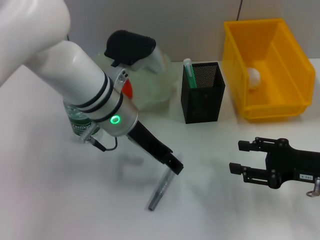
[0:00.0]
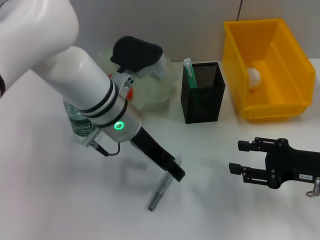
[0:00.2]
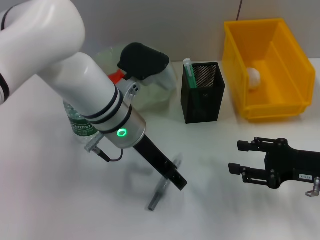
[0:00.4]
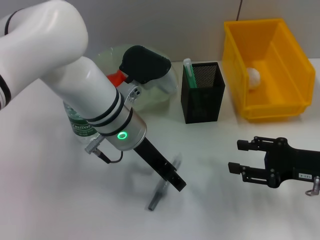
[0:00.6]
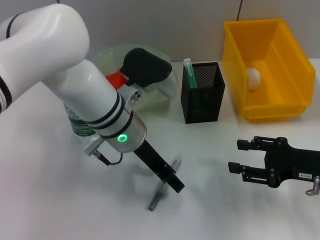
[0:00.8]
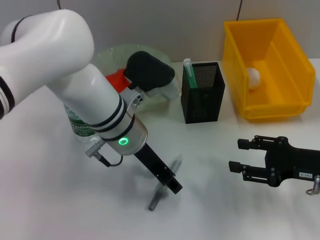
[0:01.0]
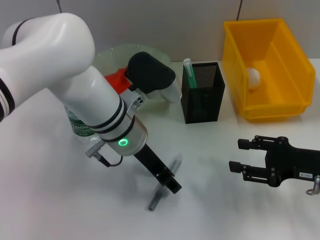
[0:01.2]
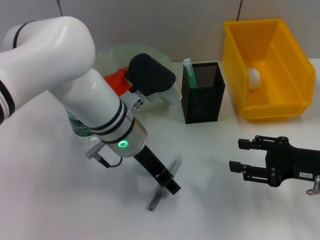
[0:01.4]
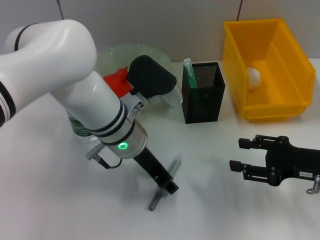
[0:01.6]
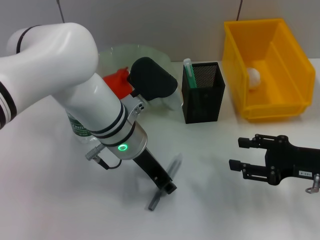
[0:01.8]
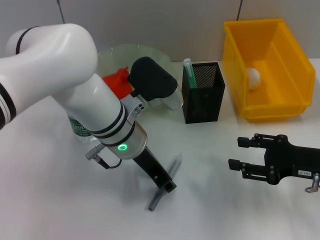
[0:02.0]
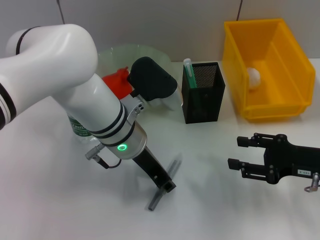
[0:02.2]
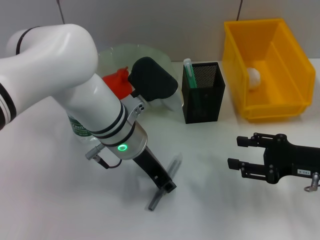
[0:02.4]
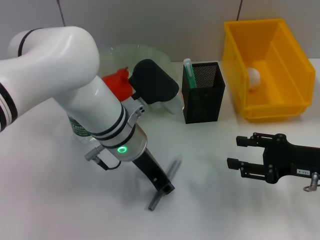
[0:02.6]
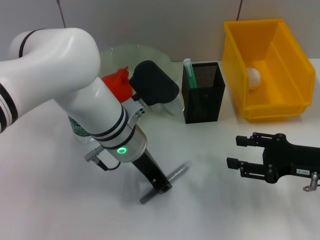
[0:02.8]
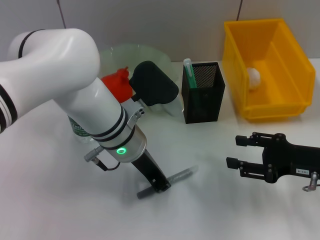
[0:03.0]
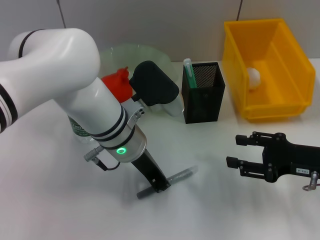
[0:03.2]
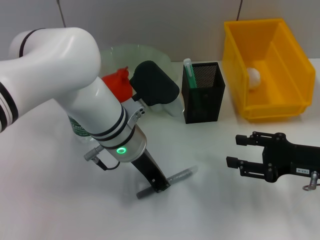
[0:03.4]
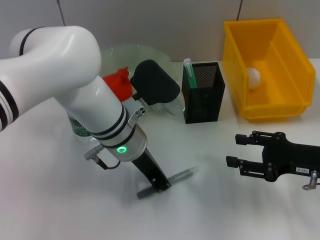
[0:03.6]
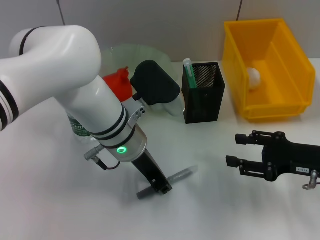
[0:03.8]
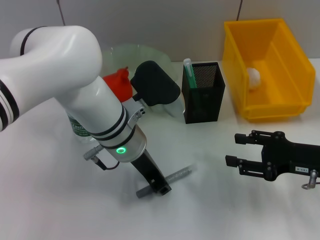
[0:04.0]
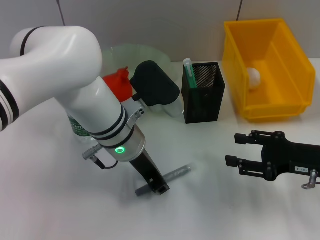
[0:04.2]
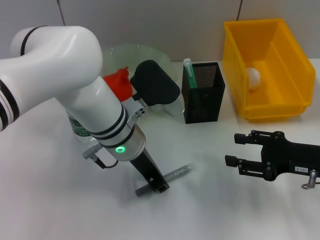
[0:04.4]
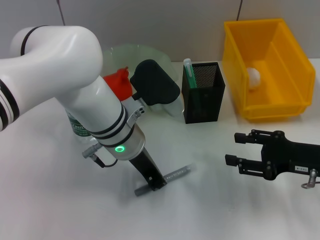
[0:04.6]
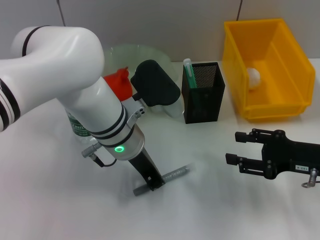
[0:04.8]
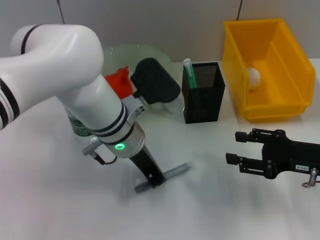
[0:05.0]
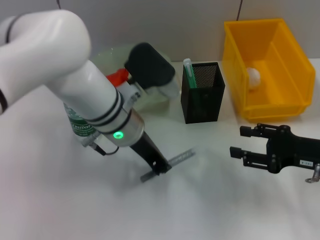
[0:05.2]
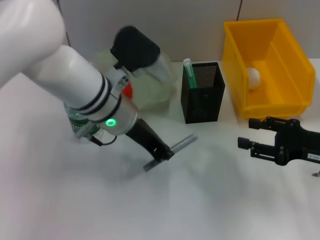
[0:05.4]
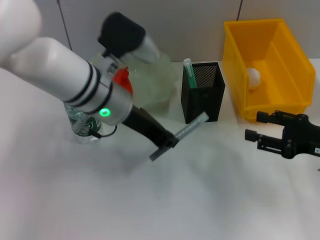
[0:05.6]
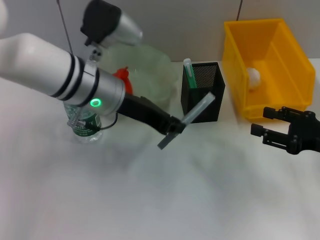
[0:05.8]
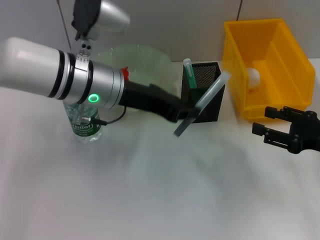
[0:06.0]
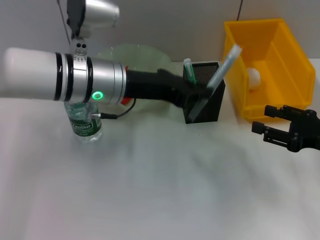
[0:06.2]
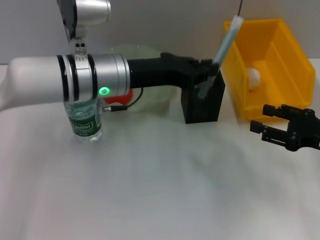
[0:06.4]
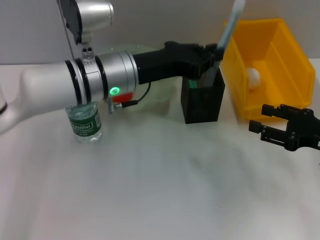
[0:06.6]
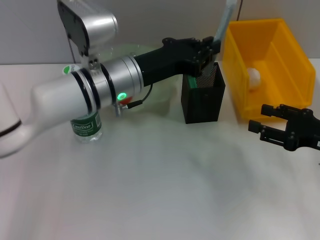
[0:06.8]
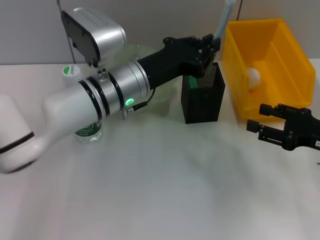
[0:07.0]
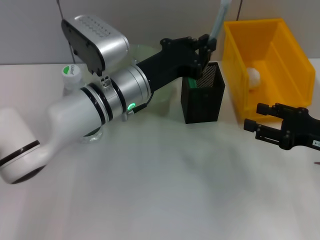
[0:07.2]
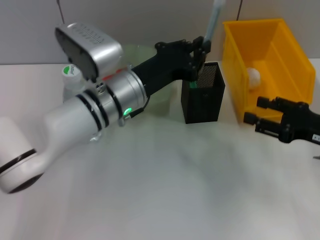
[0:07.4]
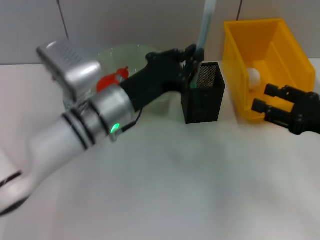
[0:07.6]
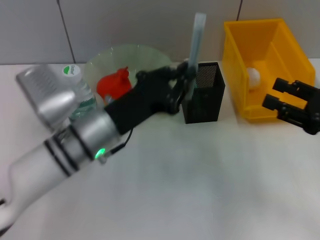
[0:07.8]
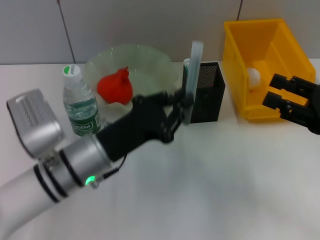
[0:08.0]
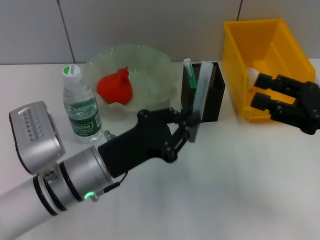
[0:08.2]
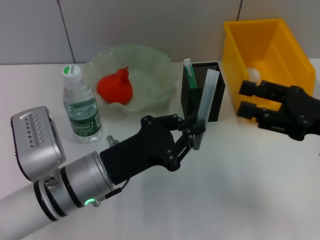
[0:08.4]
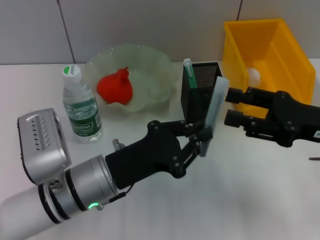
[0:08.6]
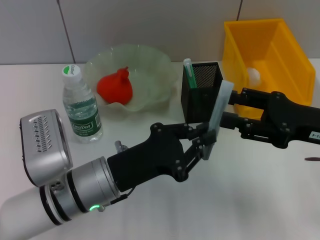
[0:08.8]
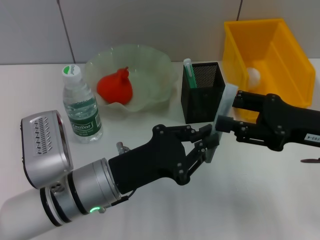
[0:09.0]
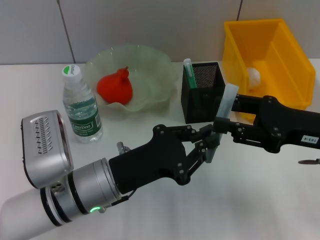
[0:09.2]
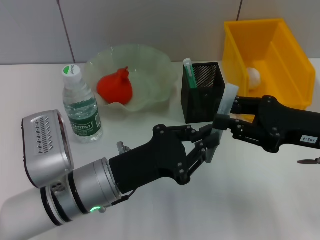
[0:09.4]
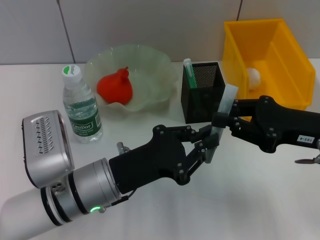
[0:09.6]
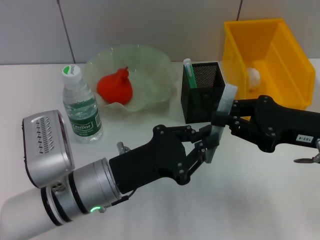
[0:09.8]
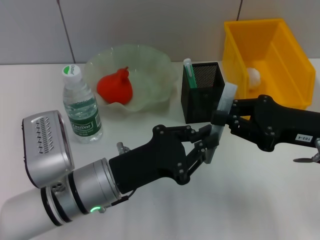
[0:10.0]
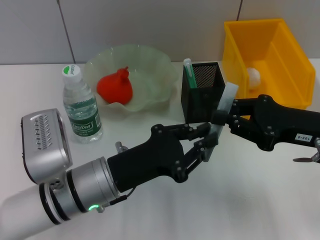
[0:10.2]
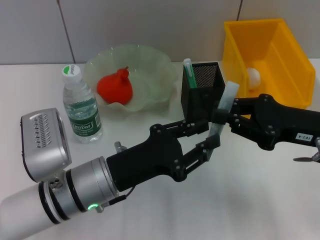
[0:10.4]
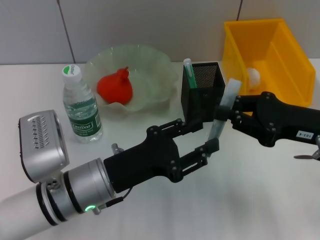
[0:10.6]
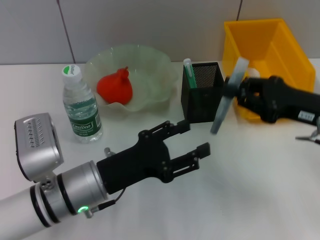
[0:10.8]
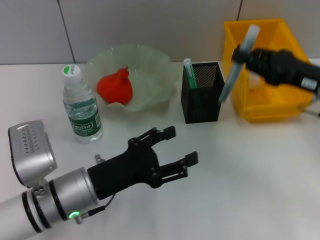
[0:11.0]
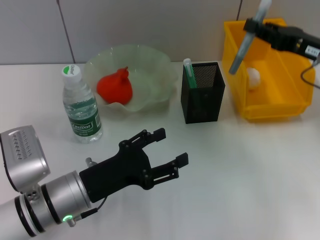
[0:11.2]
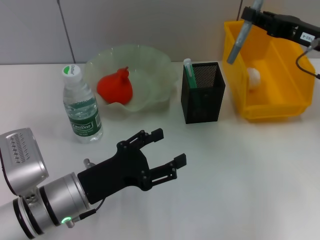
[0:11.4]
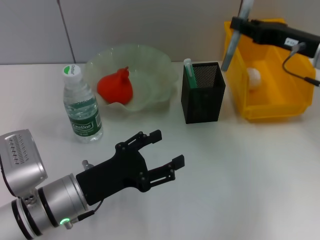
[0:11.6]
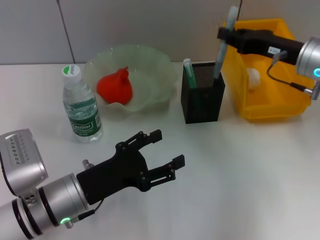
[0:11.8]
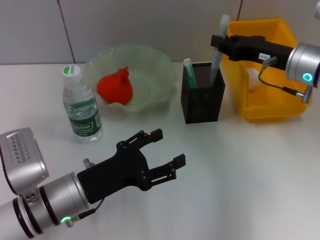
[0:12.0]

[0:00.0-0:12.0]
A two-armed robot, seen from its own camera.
Step, 0:00.0 to 0:04.6: Grab the gray glue with the left hand.
Step, 0:04.8 to 0:10.2: Pass the gray glue from the left hand to the right hand.
0:01.6 to 0:03.0: The left gripper closes its fingers.
0:03.0 to 0:04.4: The two grippers keep their place.
0:04.4 to 0:06.0: The left gripper shifts roughly 5 cm upward.
0:06.0 to 0:07.6: The left gripper shifts roughly 5 cm downward.
0:07.6 to 0:09.0: The right gripper moves to the left, approximately 5 cm. Meanwhile the left gripper heads backward, covering some 10 cm.
0:09.0 to 0:10.4: The right gripper closes.
0:10.4 to 0:12.0: The left gripper changes place by approximately 5 cm, and opens its fingers. The right gripper goes some 10 cm forward.

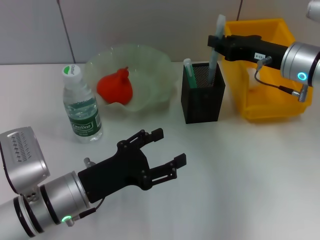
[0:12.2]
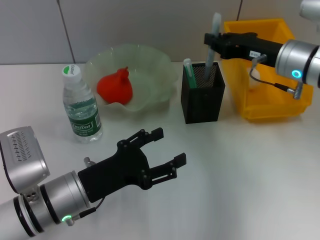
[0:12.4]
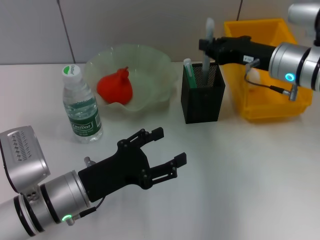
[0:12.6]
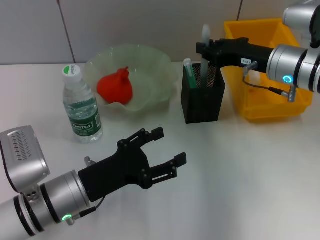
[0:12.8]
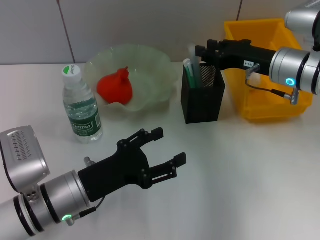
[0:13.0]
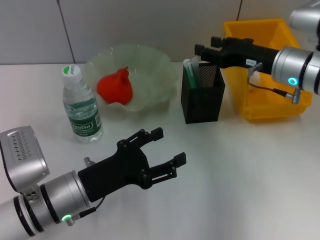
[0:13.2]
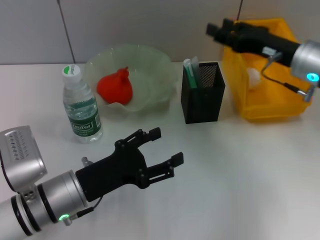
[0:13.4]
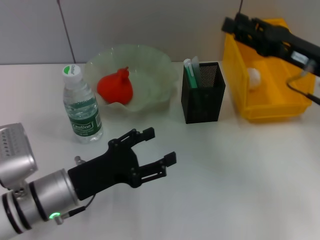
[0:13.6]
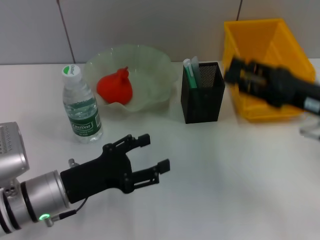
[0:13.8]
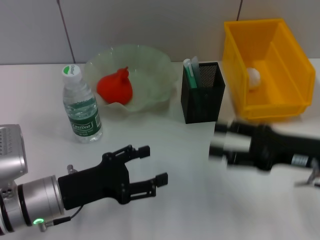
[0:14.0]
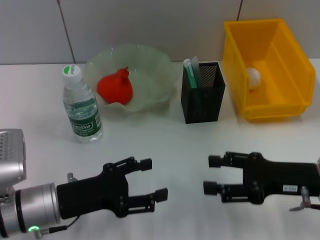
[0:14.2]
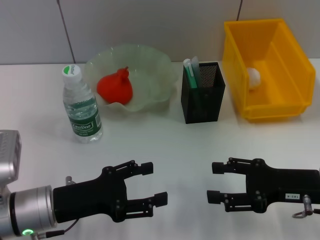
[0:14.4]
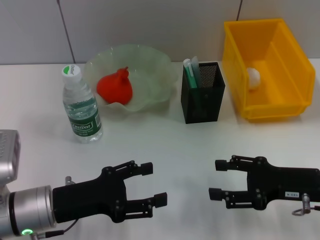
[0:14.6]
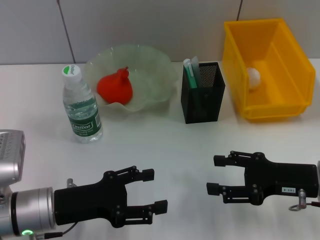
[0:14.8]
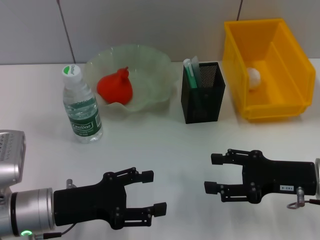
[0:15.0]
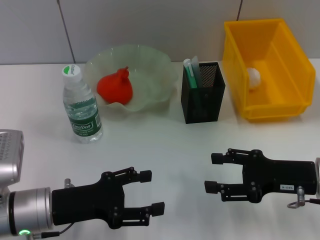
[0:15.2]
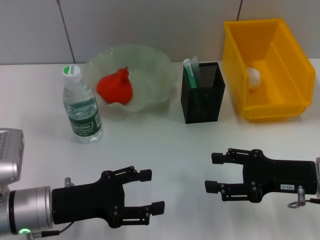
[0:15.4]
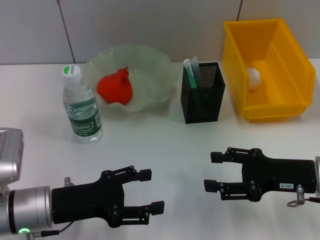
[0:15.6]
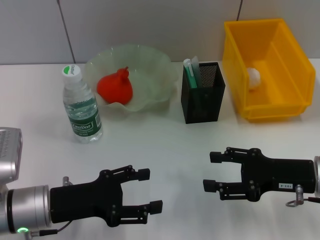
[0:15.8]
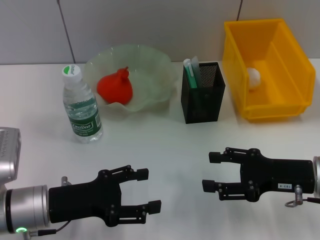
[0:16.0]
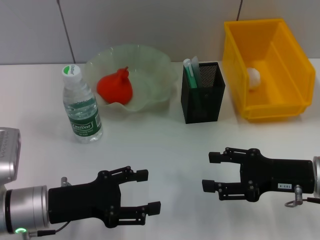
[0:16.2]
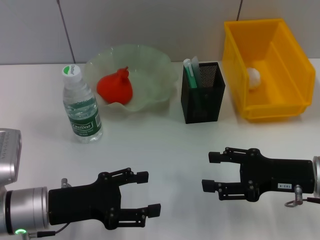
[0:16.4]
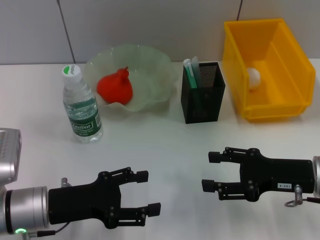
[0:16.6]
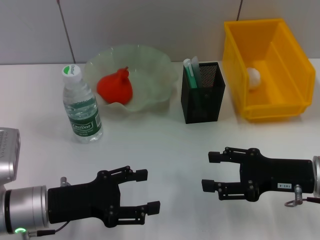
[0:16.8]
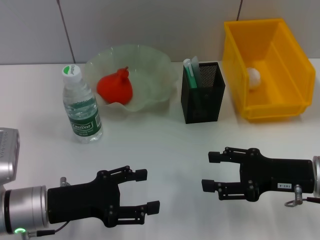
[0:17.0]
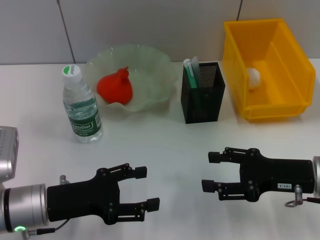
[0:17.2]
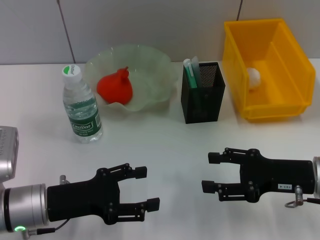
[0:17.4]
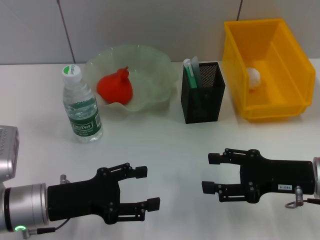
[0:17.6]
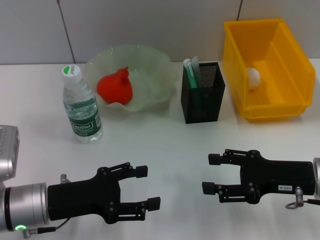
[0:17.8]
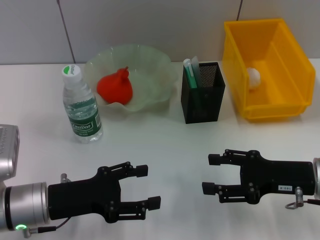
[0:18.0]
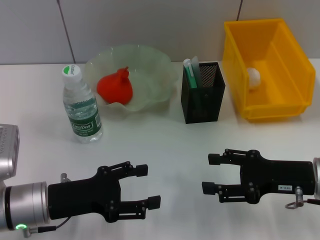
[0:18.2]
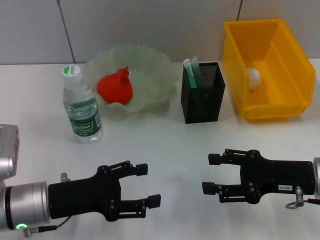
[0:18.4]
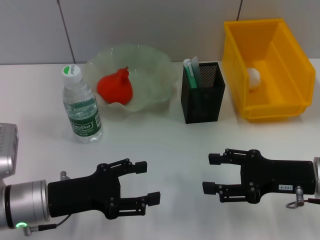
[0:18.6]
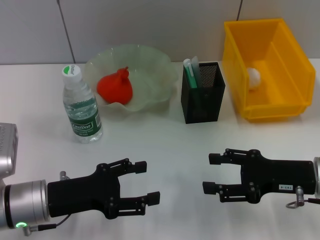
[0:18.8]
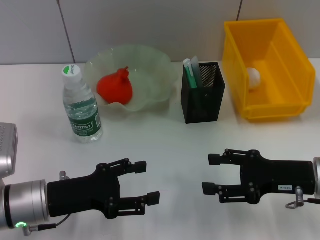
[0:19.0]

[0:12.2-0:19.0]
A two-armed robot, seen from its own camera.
0:12.2 to 0:13.6: The right gripper heads backward, covering some 5 cm, and opens its fingers.
0:13.6 to 0:15.0: The right gripper goes some 10 cm downward and backward.
0:15.0 to 0:19.0: The two grippers keep their place.

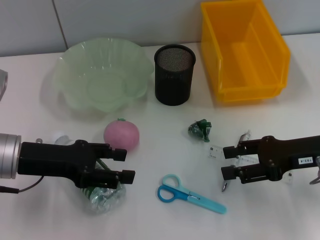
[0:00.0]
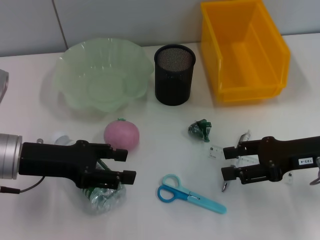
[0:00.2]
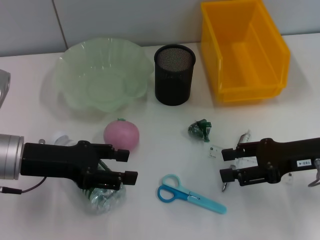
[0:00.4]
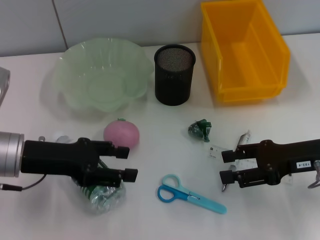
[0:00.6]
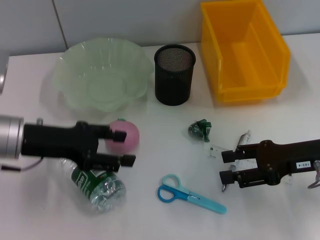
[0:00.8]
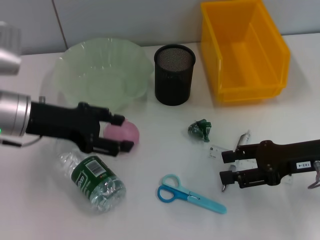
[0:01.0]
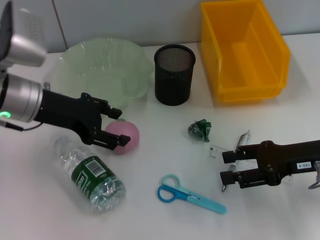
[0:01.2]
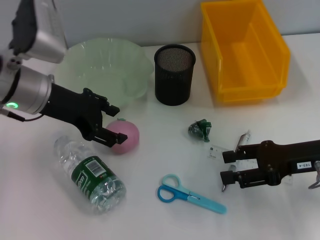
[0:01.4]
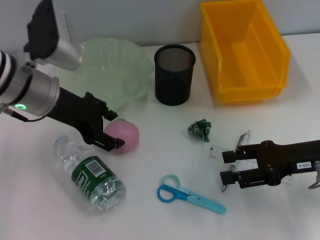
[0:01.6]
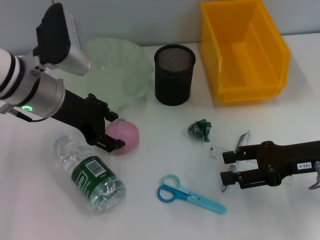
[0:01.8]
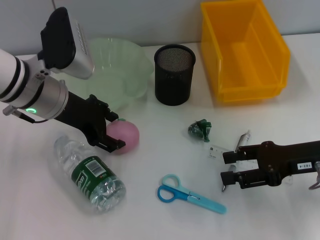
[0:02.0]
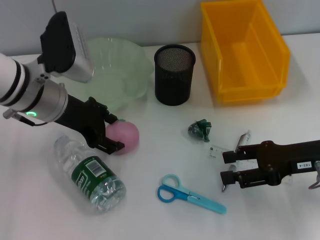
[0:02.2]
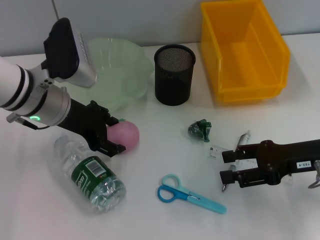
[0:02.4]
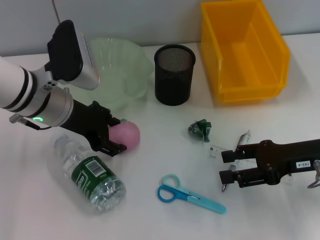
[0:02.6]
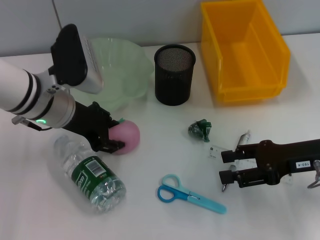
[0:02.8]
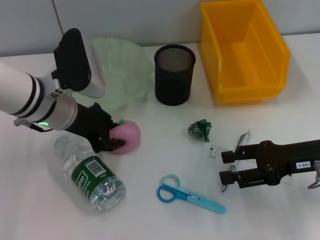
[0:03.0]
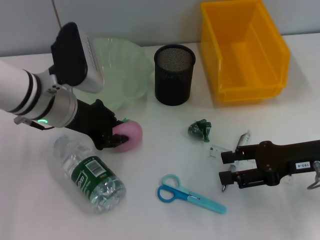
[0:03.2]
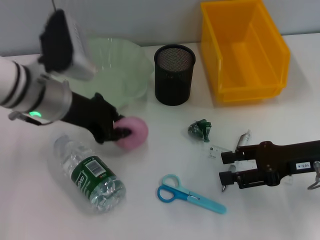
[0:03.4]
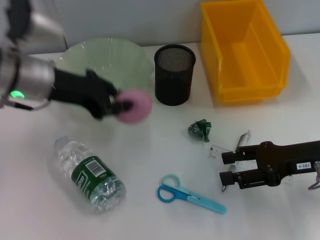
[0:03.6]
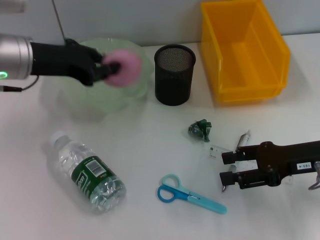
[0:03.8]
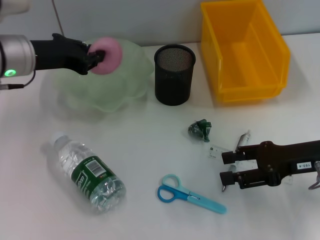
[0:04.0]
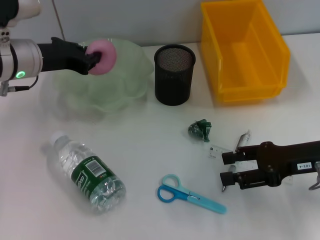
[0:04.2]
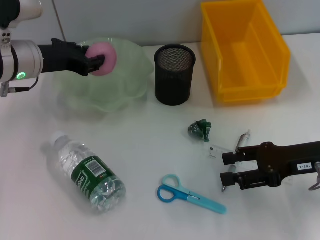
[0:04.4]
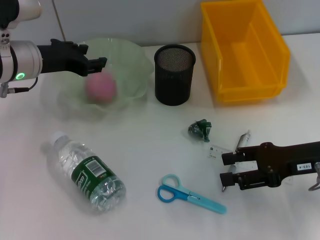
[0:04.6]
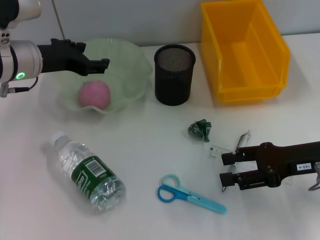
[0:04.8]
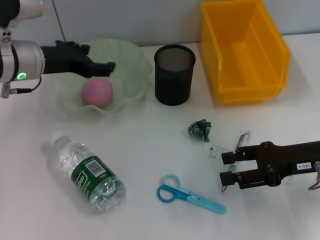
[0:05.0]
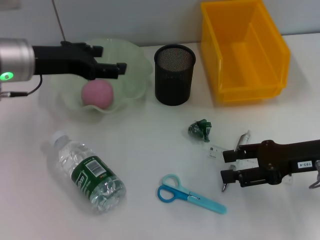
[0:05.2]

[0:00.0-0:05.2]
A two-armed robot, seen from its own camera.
Step, 0:00.0 to 0:03.0: Grab the orange with the left hand.
Step, 0:03.2 to 0:04.8: Place the orange into the fruit bowl with the left hand.
0:00.0 to 0:01.8: The left gripper travels forward, to the right and upward by approximately 10 cm.
0:01.8 to 0:03.4: The left gripper closes up.
0:03.4 to 0:05.2: The left gripper moves some 5 cm, and opens its fingers.
